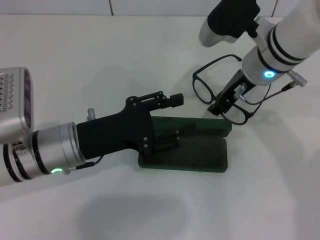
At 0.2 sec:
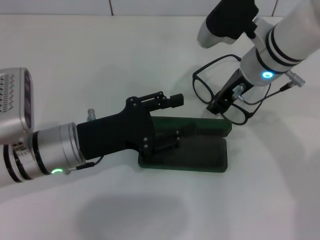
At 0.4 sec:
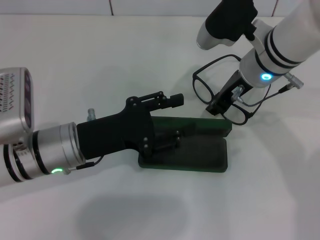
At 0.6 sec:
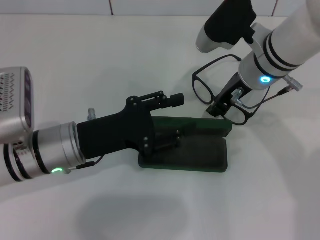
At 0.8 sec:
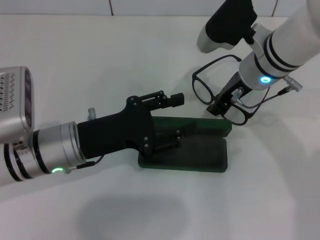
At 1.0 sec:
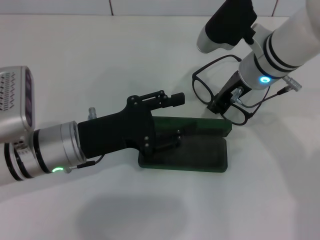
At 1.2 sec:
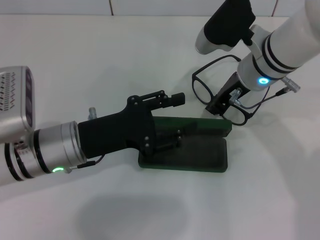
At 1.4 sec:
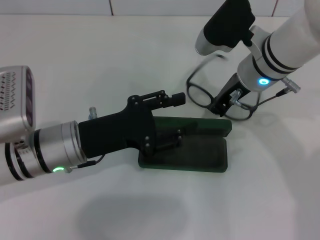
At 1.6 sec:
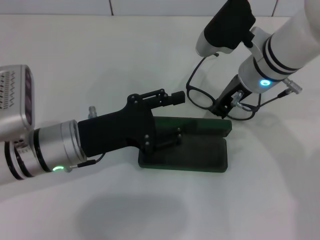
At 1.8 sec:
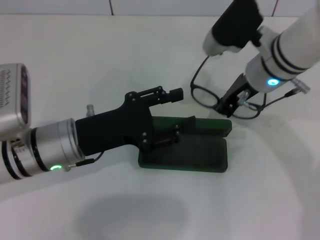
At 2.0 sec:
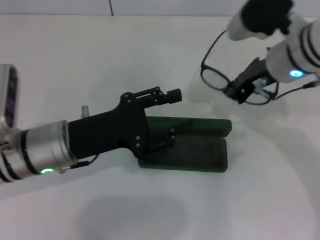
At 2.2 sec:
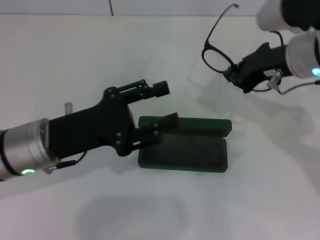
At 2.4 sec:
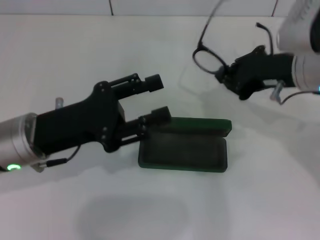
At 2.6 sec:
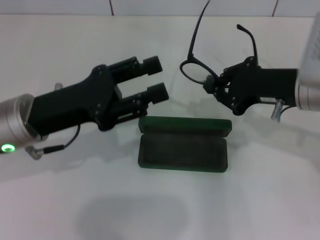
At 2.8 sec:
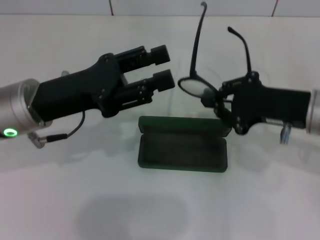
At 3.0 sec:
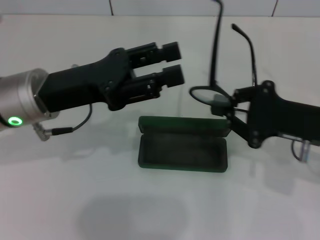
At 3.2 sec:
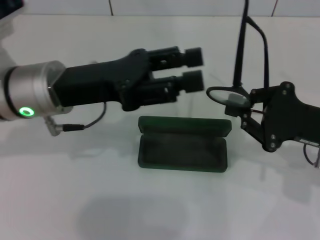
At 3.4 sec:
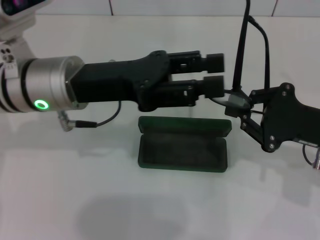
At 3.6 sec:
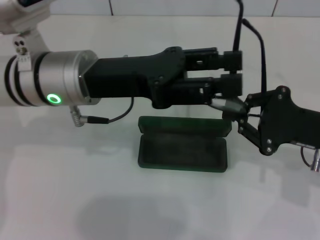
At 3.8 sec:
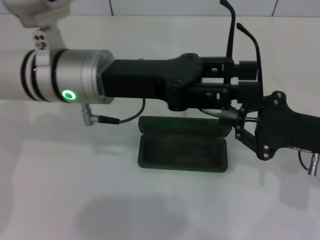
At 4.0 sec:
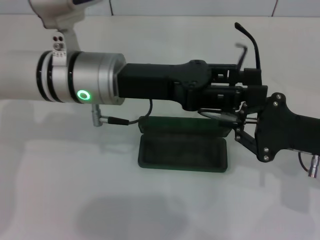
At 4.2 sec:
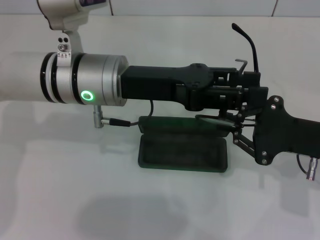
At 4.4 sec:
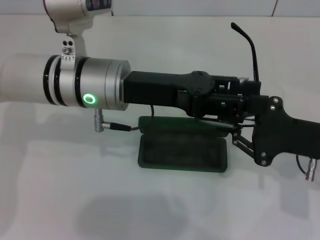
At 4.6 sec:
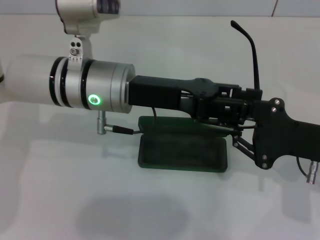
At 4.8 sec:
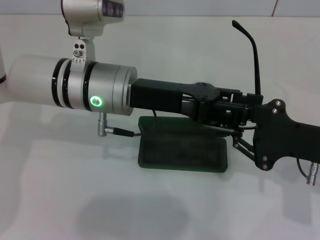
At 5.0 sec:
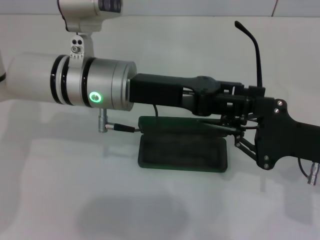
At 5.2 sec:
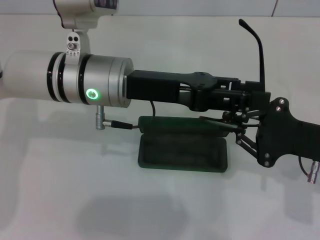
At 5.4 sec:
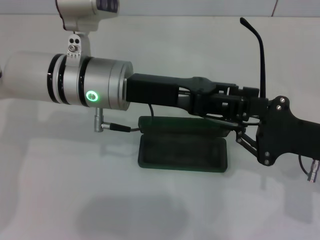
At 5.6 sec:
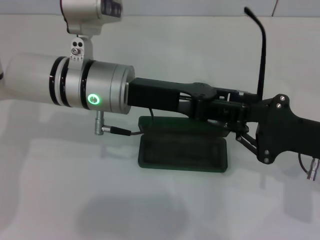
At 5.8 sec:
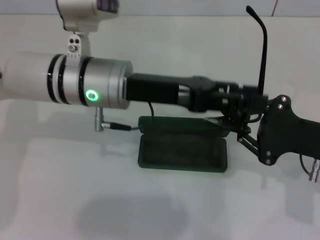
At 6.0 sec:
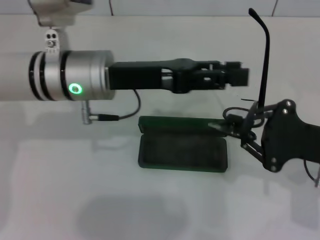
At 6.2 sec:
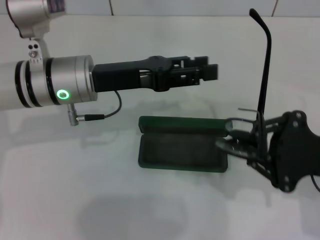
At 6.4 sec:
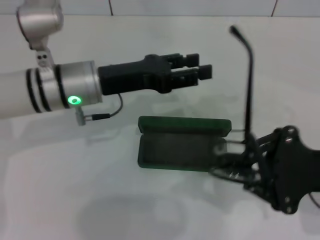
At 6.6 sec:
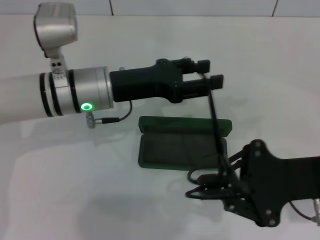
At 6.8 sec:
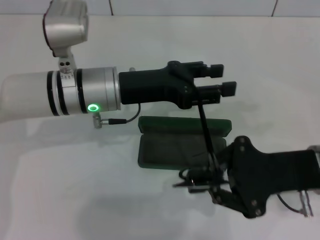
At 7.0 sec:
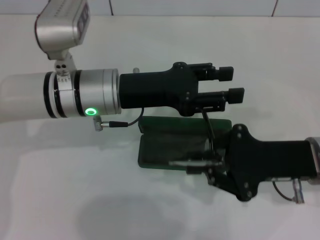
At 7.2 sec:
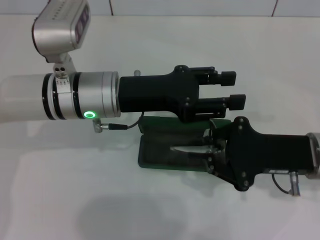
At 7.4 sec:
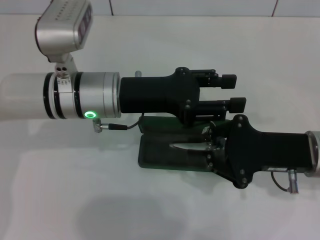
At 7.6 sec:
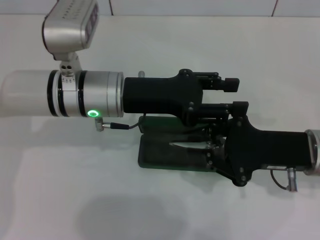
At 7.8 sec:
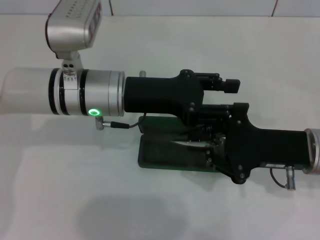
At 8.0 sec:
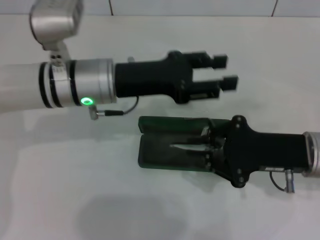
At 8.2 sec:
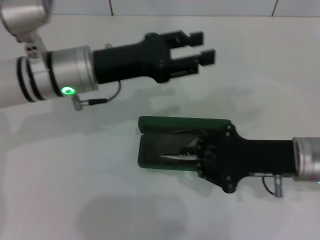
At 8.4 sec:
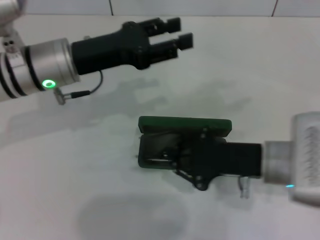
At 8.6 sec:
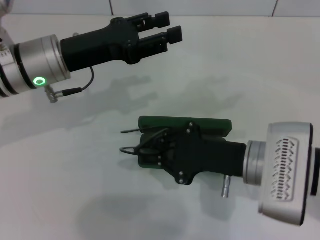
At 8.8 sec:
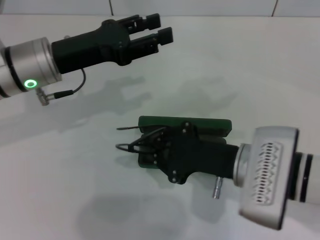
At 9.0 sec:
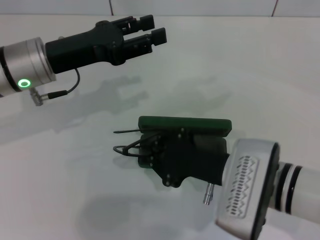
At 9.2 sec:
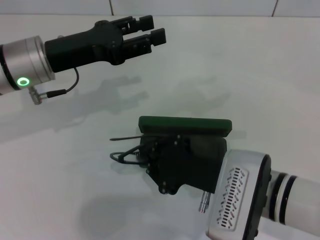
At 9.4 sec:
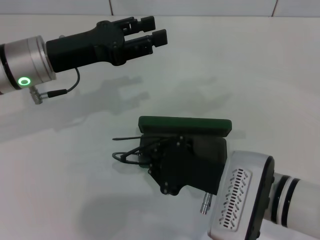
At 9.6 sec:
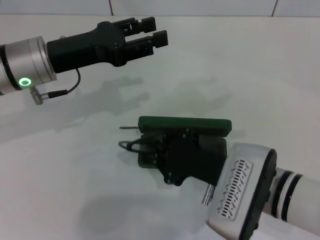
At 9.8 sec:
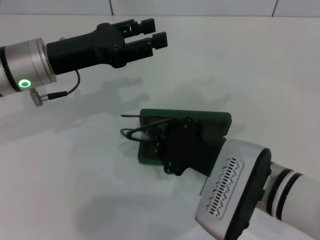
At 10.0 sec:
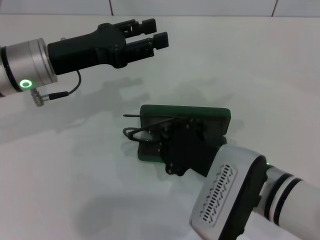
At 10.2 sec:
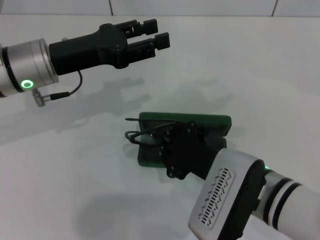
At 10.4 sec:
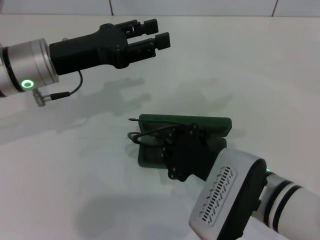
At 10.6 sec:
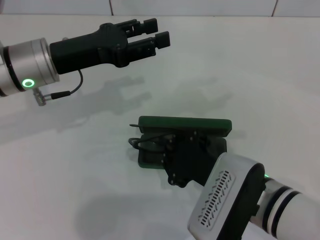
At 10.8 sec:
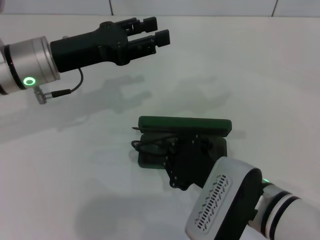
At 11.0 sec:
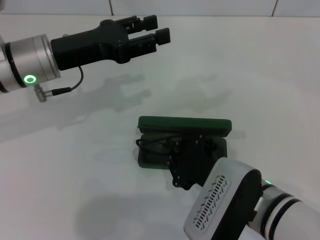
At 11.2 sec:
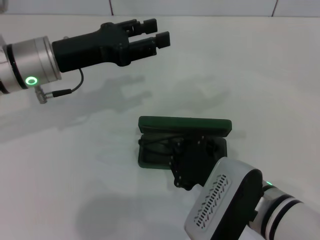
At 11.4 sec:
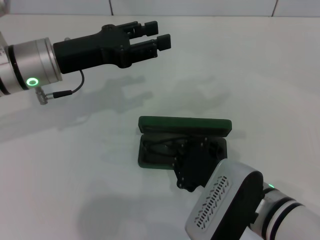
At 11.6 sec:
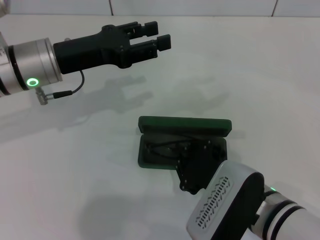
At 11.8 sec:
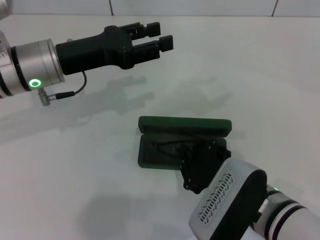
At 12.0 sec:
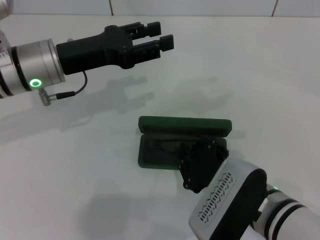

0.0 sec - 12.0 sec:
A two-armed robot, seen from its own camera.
Step, 1.6 sec - 7.8 sec: Fold the frame with your left hand.
0.0 sec - 1.6 sec: Neither gripper changes place.
1.6 sec - 3.0 sec: The right gripper travels to the right and backward by approximately 15 cm, while the left gripper heads upward, covering some 5 cm.
3.0 sec - 4.4 sec: The left gripper travels to the right by some 10 cm.
7.6 sec - 9.0 sec: The grippers both shift to the left by about 10 cm.
9.0 sec - 10.4 sec: There are only small adjustments of the grippers.
10.4 sec - 12.0 sec: There are only small adjustments of the grippers.

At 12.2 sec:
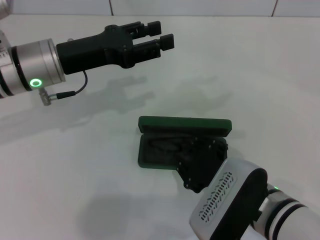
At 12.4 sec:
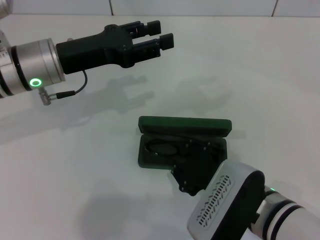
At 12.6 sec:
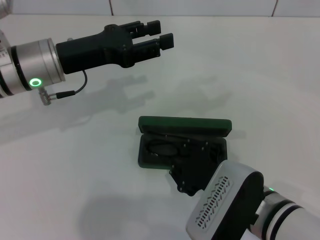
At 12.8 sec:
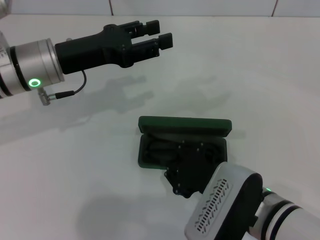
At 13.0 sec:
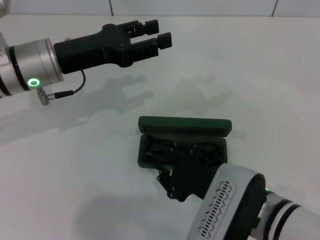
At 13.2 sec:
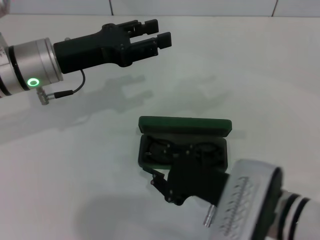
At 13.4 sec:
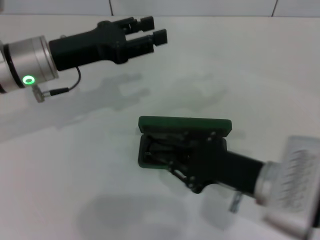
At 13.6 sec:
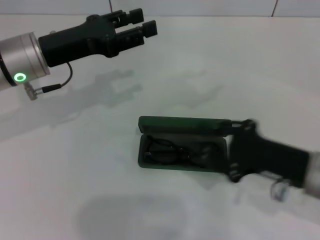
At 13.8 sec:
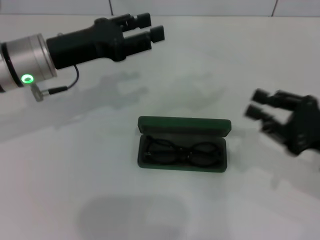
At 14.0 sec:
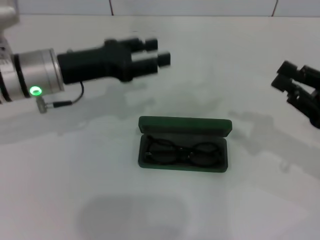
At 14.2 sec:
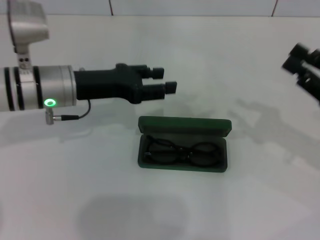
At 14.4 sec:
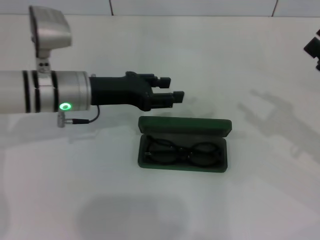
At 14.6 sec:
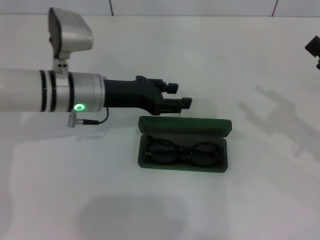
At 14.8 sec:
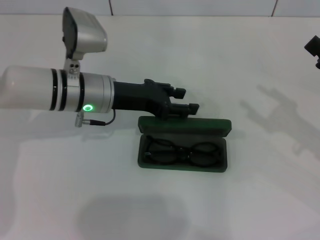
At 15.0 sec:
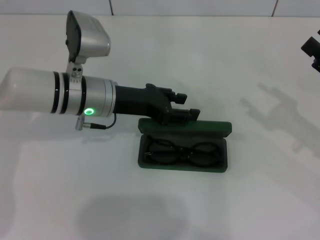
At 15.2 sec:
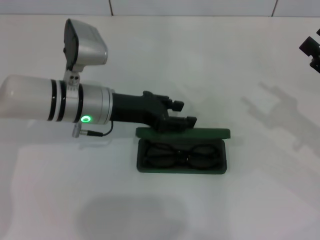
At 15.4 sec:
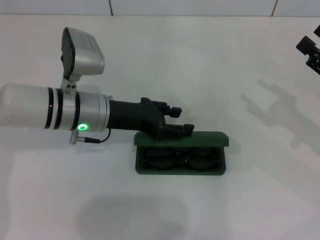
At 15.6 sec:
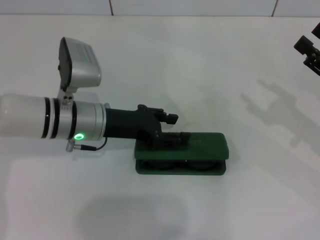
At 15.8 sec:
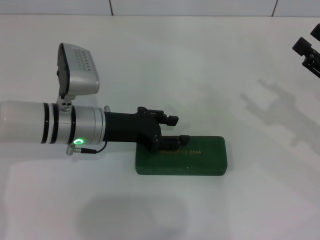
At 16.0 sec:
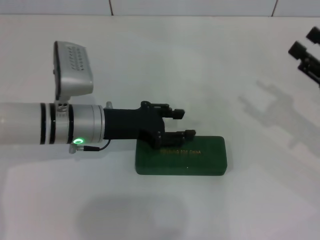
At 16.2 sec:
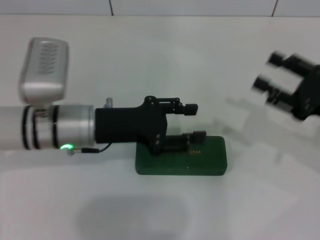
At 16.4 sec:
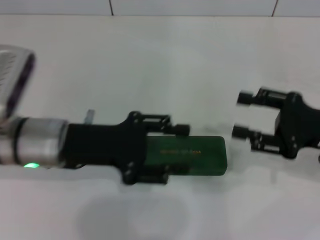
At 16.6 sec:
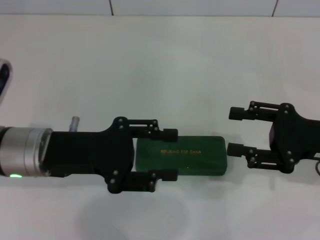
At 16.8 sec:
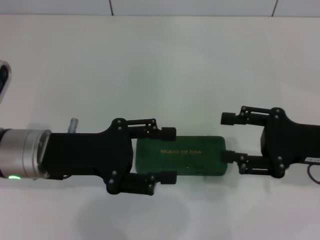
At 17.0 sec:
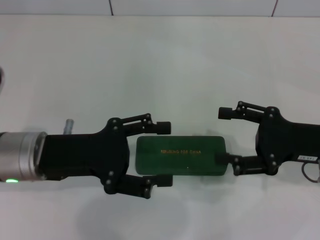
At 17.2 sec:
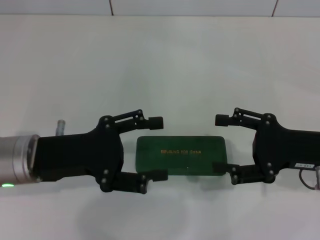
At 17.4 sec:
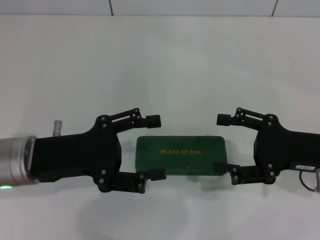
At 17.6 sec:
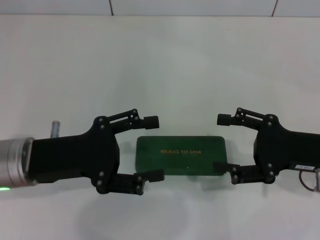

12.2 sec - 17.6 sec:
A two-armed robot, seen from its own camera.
Step, 12.8 sec - 15.6 sec: Close the glasses case with your left hand.
12.2 sec - 13.6 sec: The right gripper goes some 10 cm to the right.
13.6 sec - 15.0 sec: The left gripper shifts about 10 cm to the right and downward, while the right gripper goes some 10 cm to the right and forward, and opens its fingers.
15.0 sec - 16.2 sec: The left gripper goes roughly 5 cm backward.
16.2 sec - 17.6 sec: The left gripper is displaced backward and to the left by about 10 cm, and opens its fingers.
